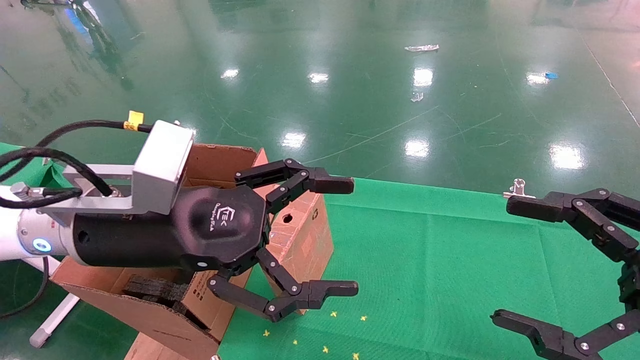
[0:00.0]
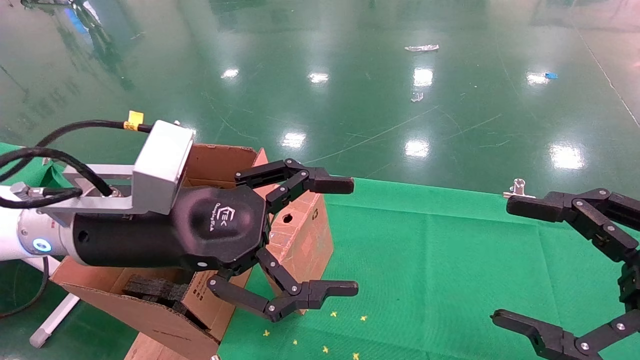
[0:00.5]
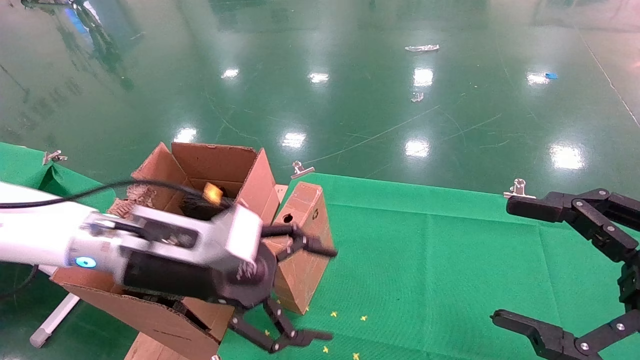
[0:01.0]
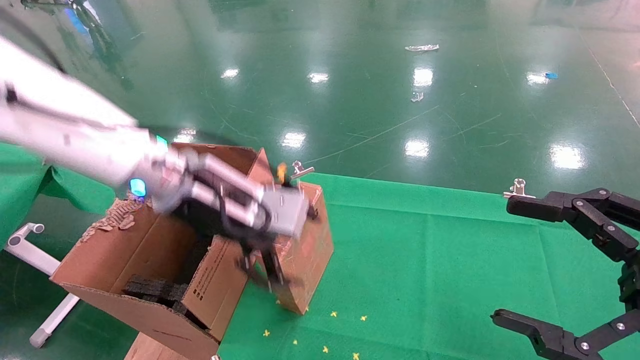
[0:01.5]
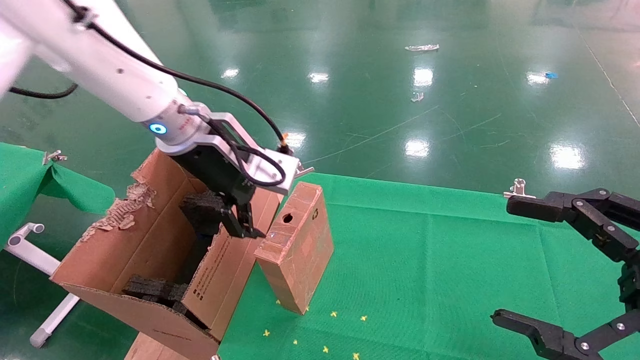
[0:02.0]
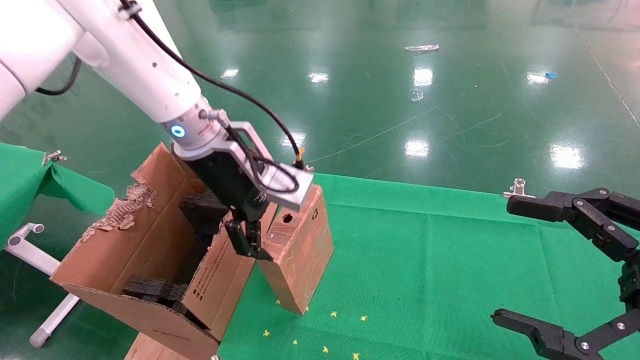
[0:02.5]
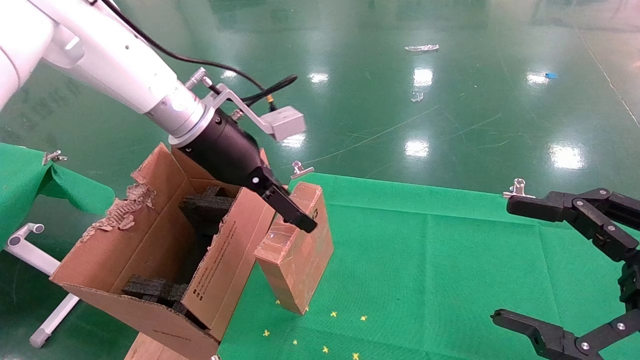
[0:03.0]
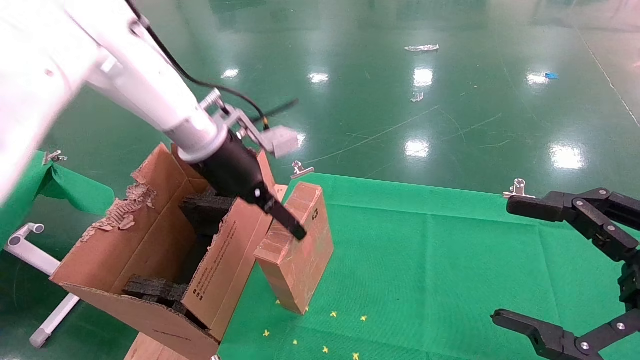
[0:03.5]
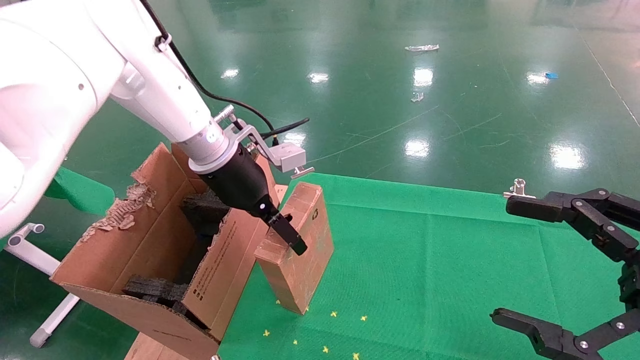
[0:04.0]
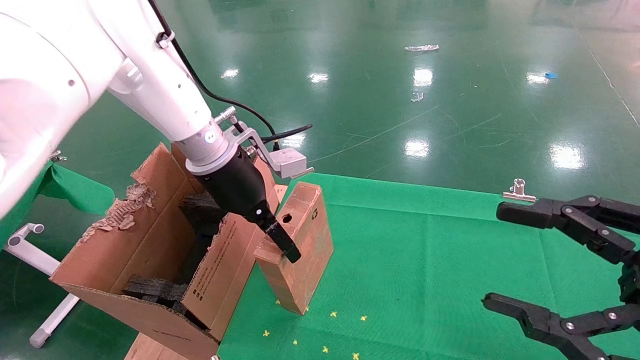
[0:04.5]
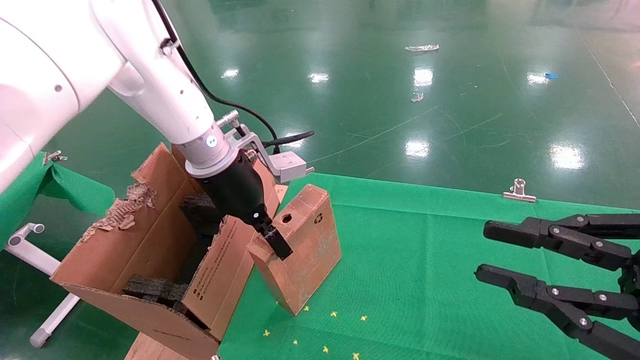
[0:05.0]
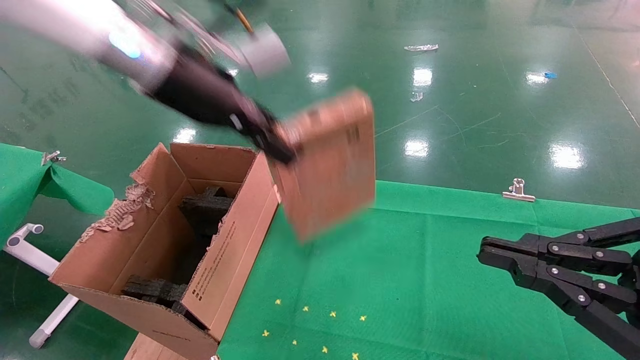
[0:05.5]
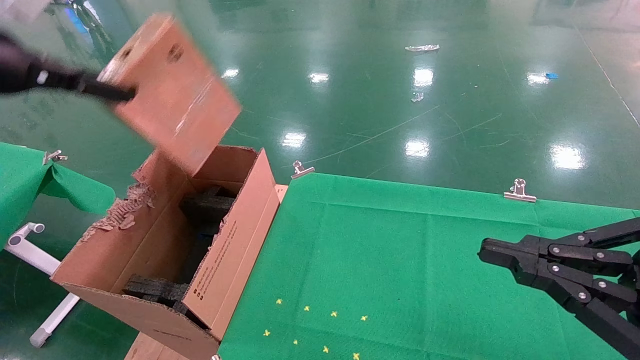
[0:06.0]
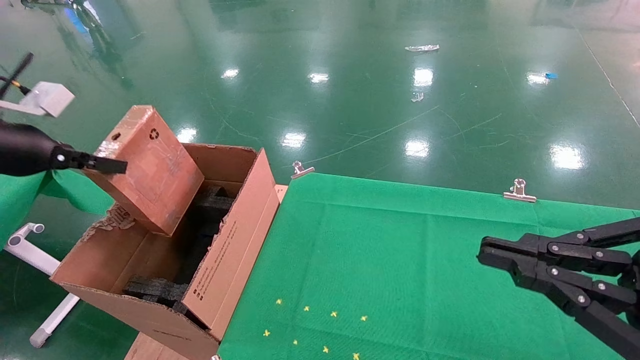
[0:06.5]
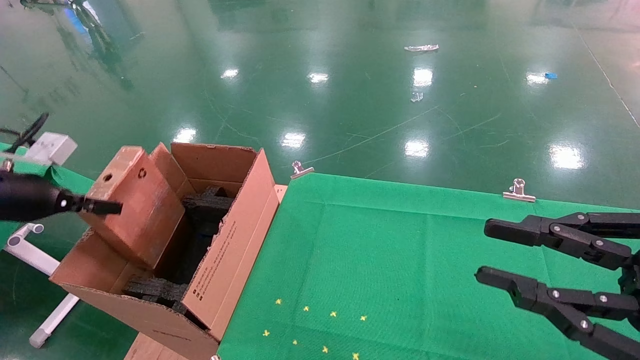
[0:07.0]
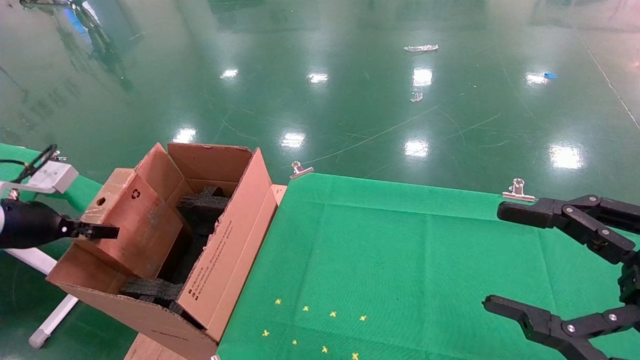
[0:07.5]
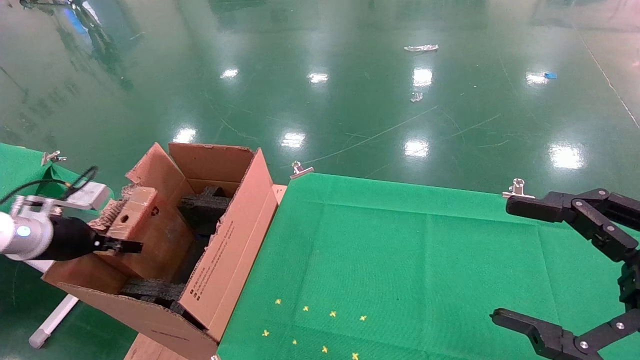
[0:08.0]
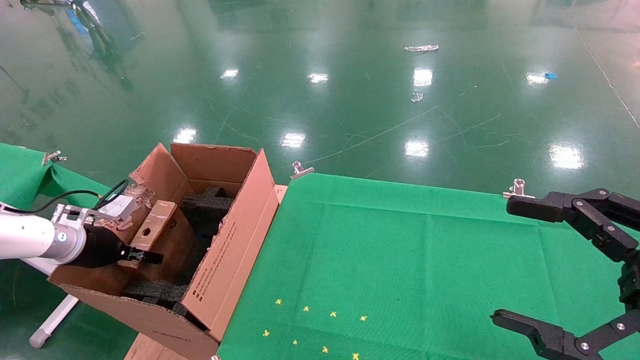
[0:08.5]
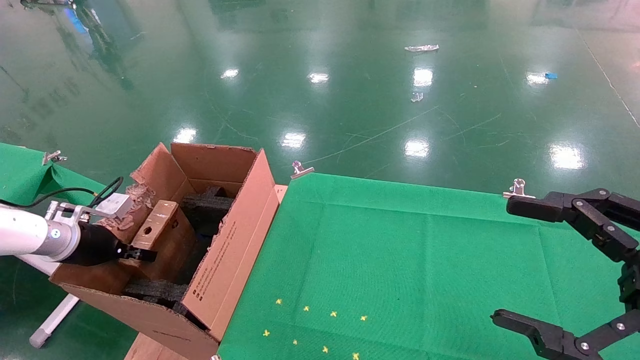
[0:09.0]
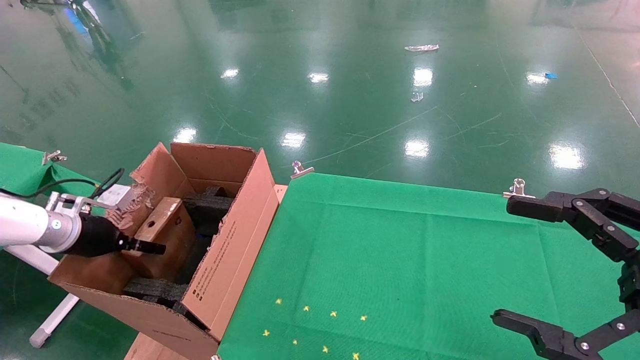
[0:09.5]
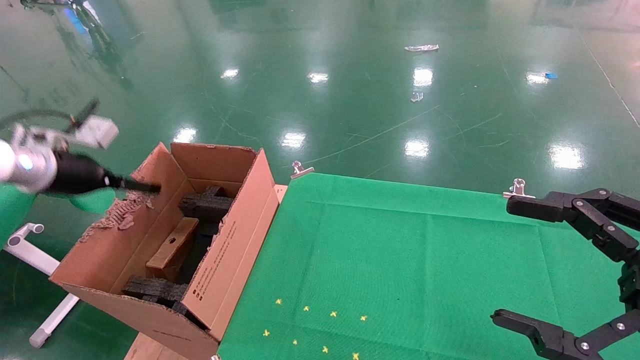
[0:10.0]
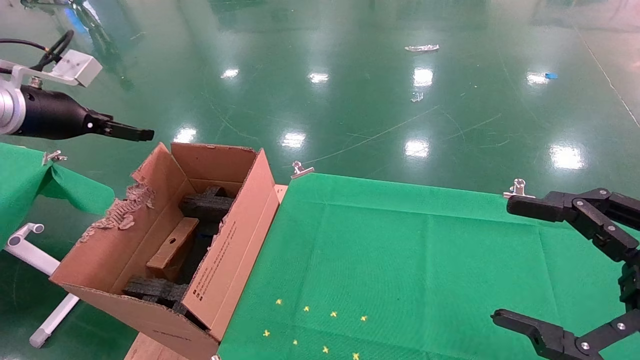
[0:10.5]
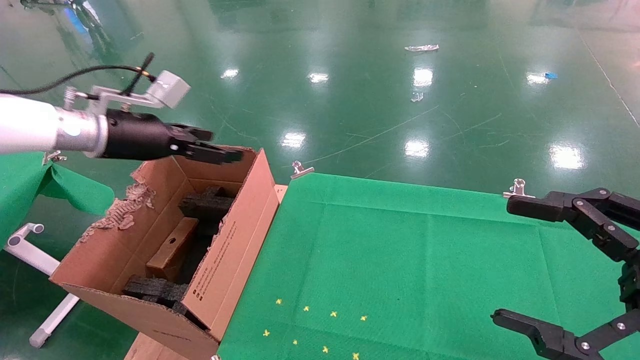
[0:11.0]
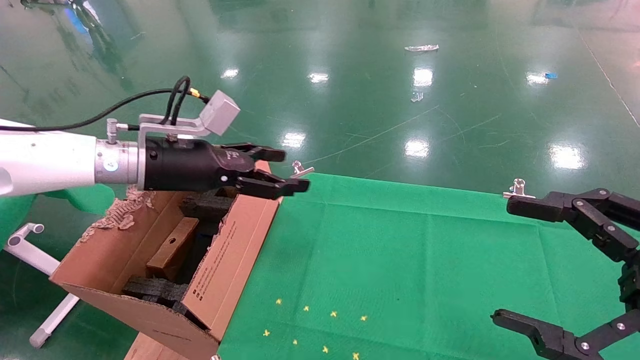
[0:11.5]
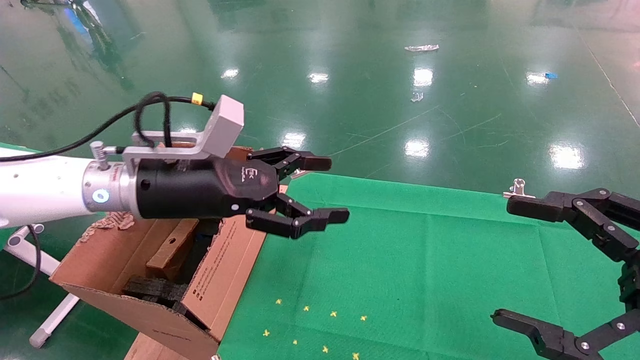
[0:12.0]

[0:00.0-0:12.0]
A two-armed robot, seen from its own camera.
Task of the whole recording: using a robotic arm to pick up a cardboard box and palace it the carton.
Step, 0:01.0 to 0:05.0: Pick up the mouse and the power cord paper box.
Step, 0:05.5 to 0:10.0: Place the mouse and the power cord paper box into the container.
0:00.0 to 0:02.0: The left gripper goes about 15 cm forward and upward.
0:02.0 to 0:04.0: The left gripper shifts by roughly 5 cm.
0:04.0 to 0:06.0: The left gripper goes about 30 cm to the left, upward and backward, and closes its fingers, while the right gripper closes.
0:06.0 to 0:08.0: The right gripper opens. The left gripper goes about 25 cm downward.
0:08.0 to 0:10.0: The left gripper travels upward by roughly 10 cm, and opens.
0:10.0 to 0:12.0: The left gripper moves to the right, about 25 cm.

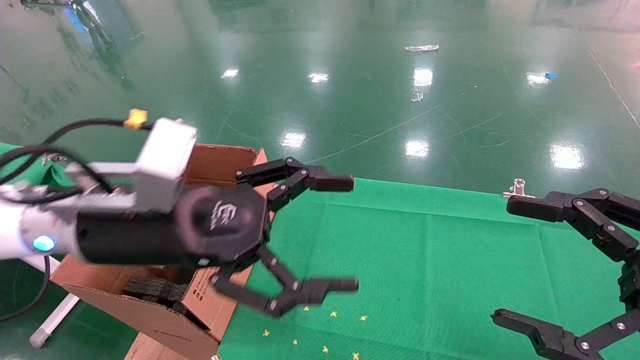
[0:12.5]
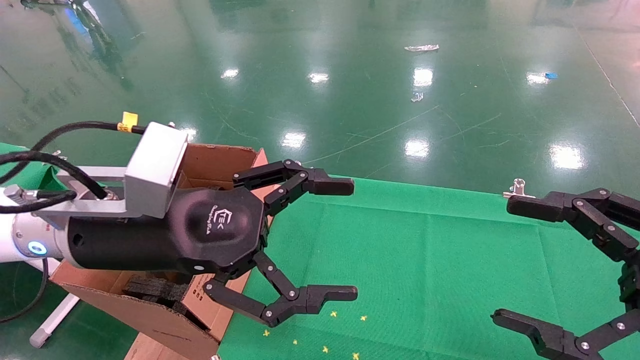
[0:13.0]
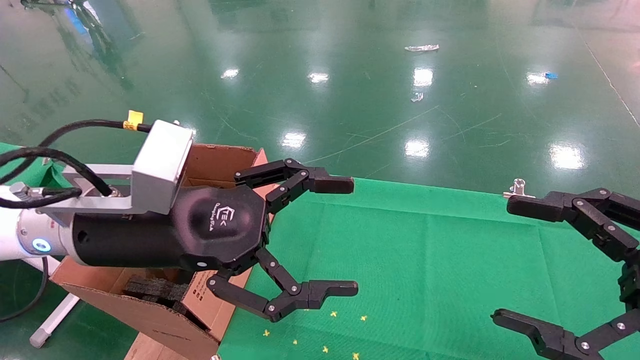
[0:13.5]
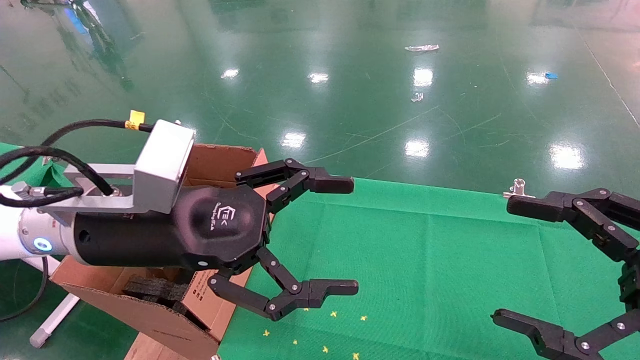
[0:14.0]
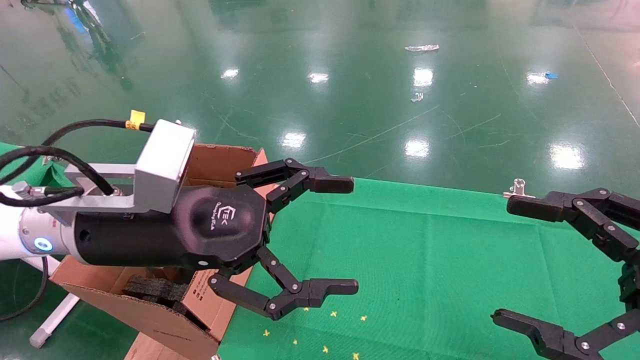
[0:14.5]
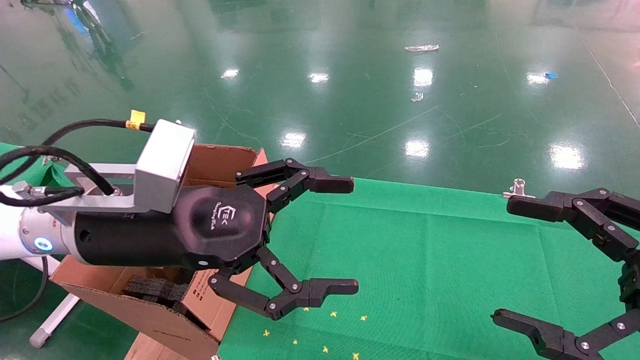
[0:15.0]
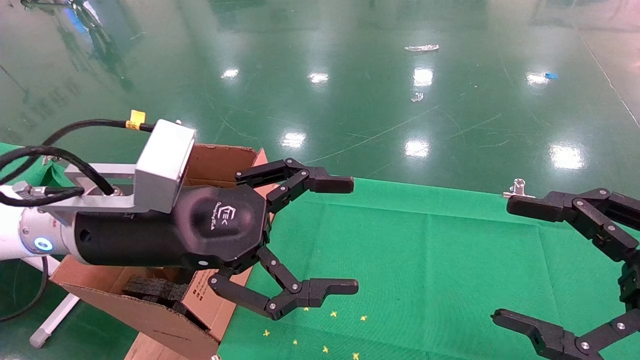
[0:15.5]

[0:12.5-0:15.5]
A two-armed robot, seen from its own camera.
Task of the whole recording: using a robotic arm to pick up a cardboard box and palace it the carton.
0:12.5 to 0:15.5: Both grippers stay put.
